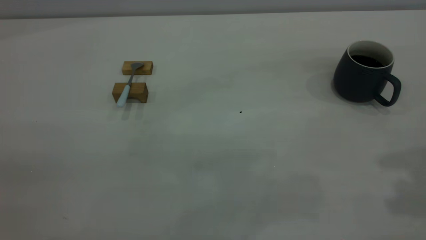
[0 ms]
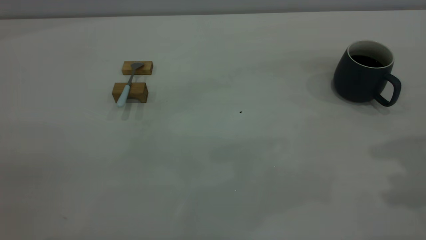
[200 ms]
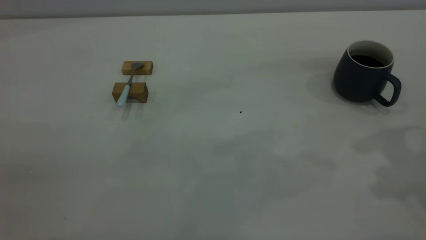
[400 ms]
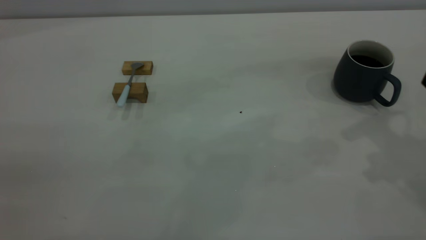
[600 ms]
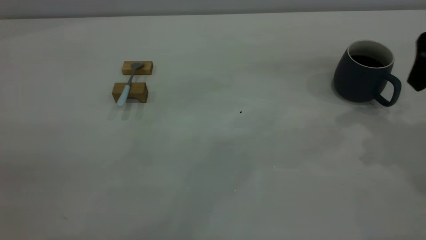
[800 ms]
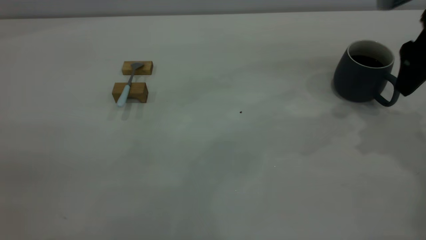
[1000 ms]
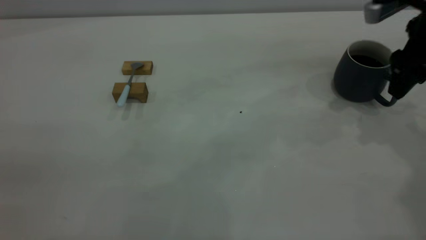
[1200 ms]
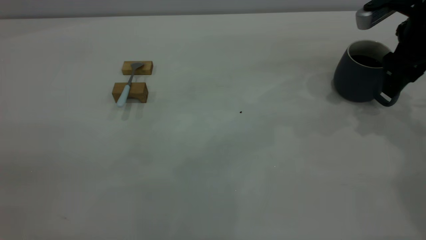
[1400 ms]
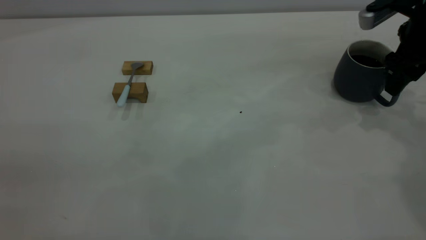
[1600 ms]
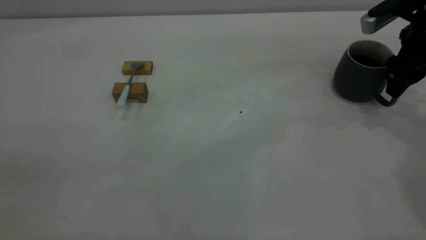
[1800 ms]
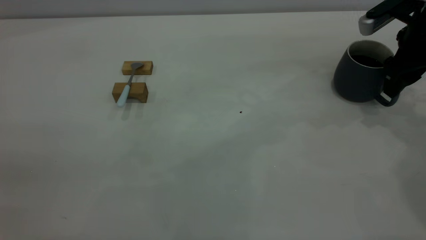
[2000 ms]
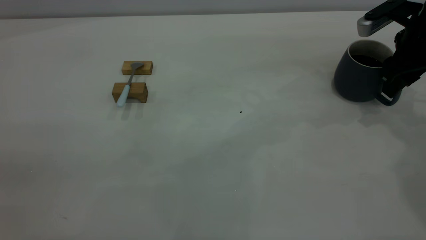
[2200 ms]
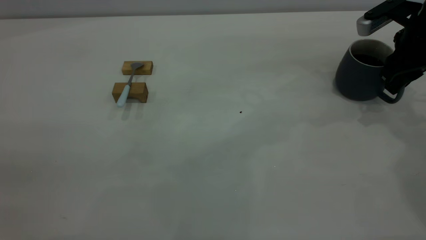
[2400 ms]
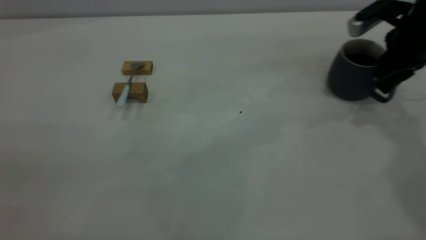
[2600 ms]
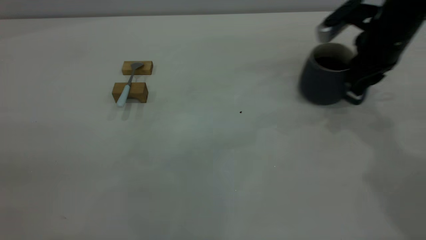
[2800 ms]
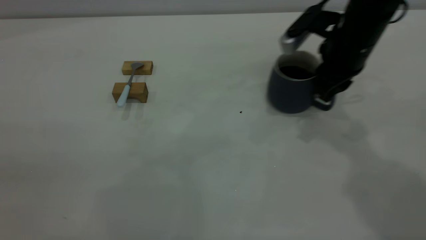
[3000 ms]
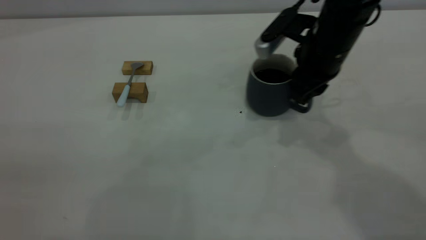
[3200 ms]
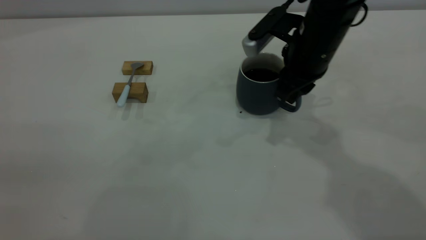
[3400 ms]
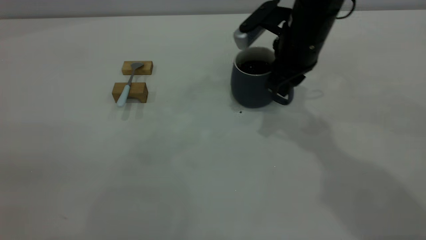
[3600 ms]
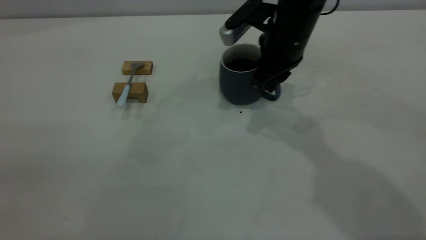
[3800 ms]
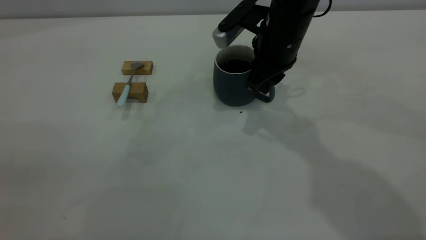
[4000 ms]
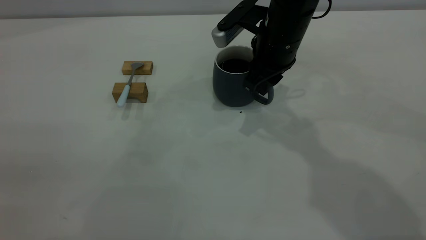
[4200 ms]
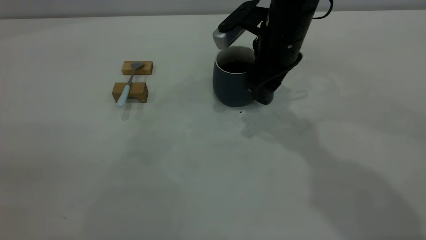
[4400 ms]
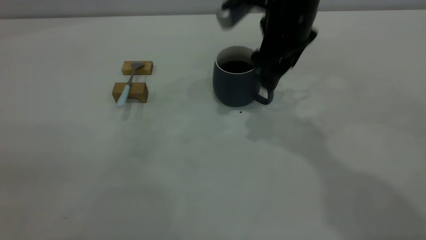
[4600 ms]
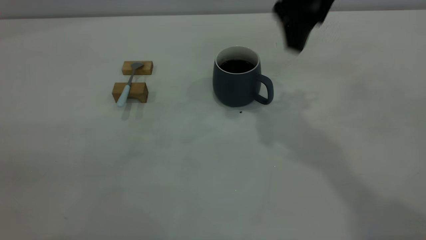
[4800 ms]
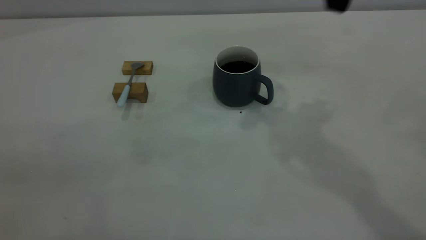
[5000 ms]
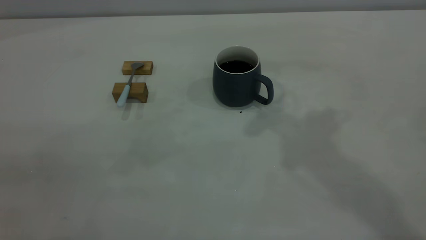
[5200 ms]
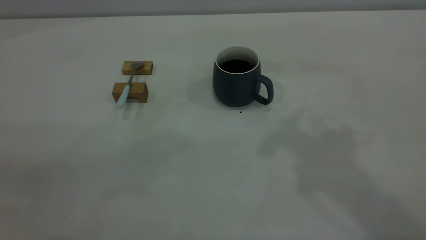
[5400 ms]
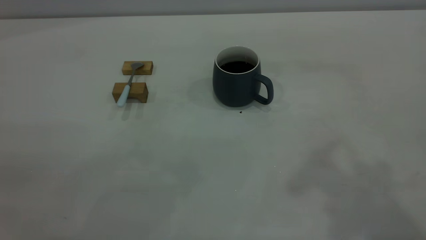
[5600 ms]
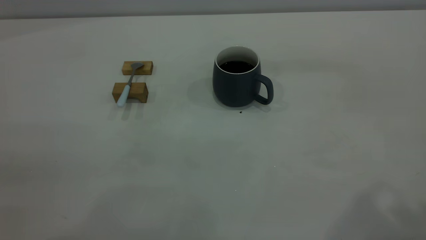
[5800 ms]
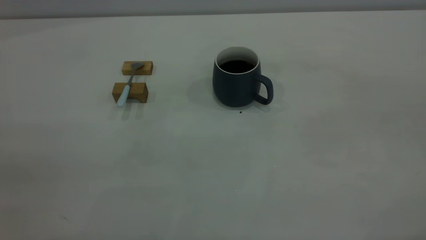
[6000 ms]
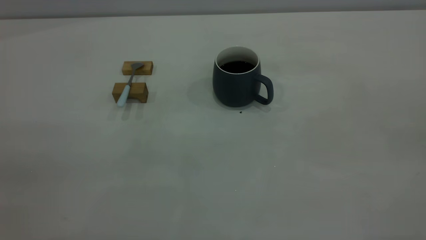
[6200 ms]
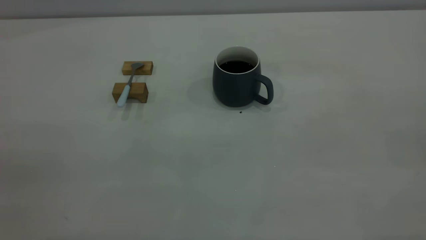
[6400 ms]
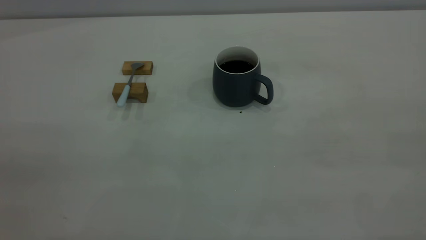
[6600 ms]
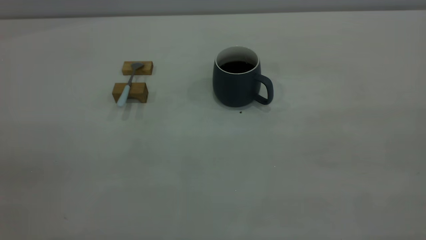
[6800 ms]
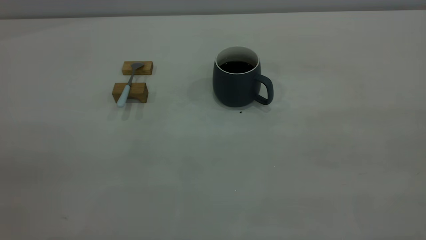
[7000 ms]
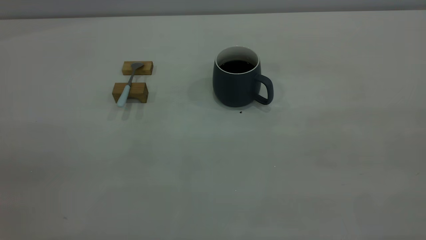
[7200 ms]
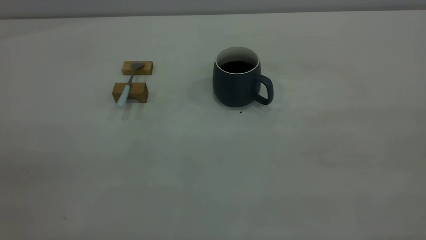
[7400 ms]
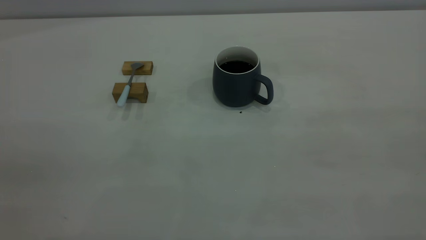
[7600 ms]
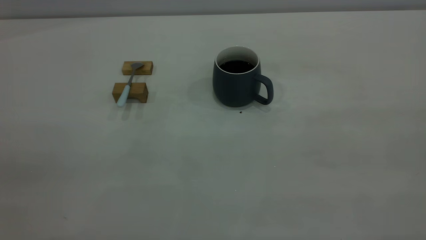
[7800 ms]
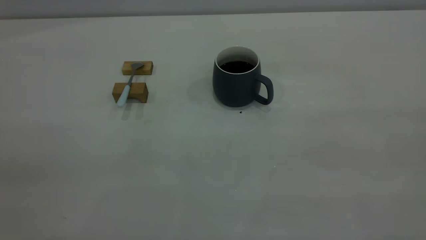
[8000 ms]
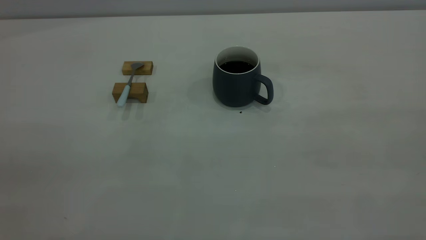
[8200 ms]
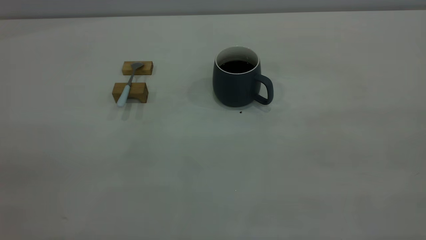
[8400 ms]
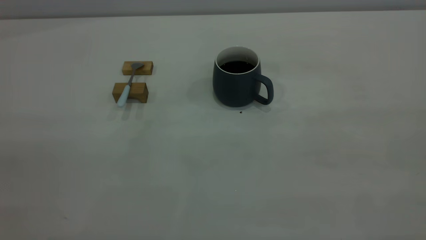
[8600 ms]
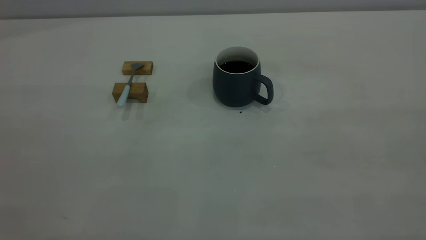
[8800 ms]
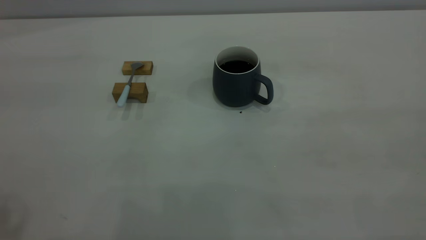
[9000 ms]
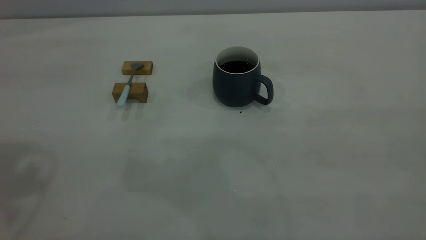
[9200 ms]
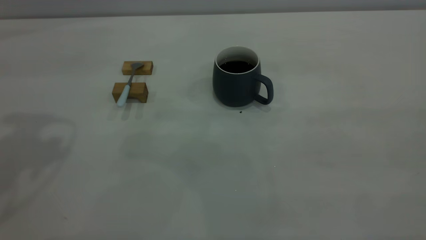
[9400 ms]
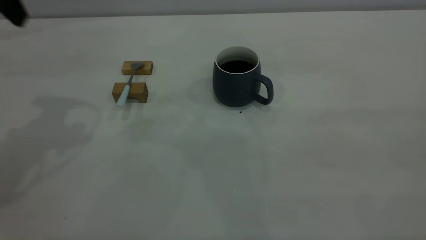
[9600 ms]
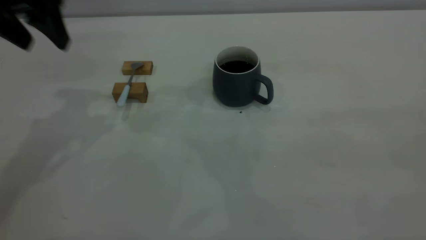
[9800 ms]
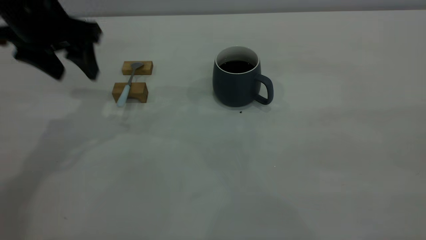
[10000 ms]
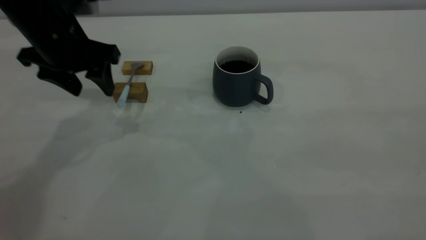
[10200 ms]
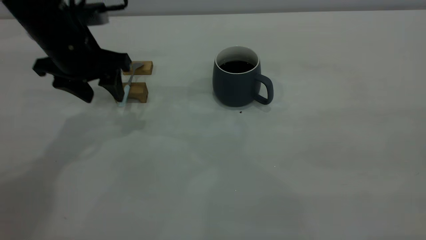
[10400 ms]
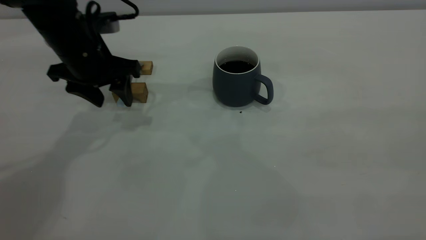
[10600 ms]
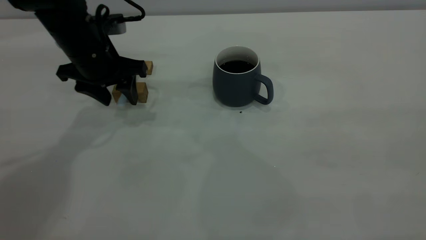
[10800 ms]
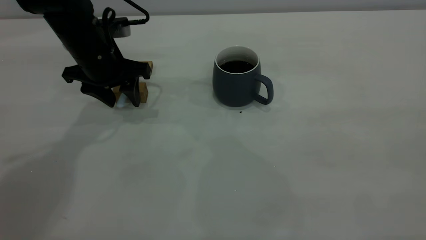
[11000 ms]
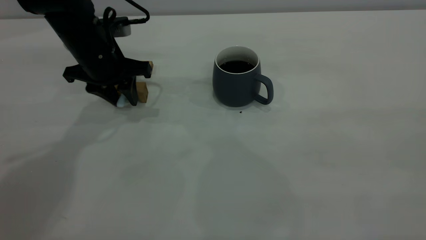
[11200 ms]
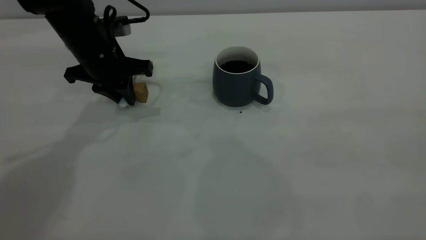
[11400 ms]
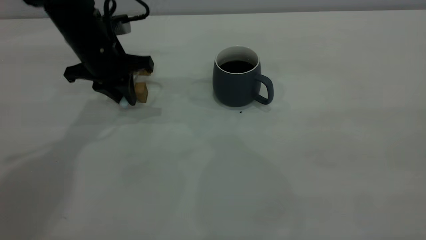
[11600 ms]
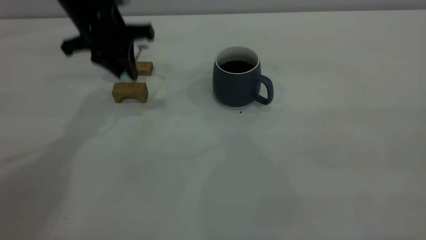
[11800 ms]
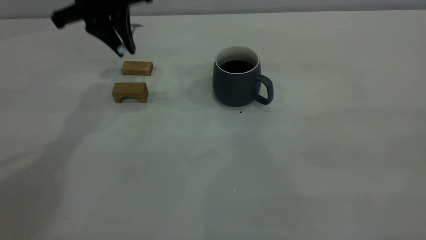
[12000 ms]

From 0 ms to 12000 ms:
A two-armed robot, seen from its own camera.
Step, from 600 ms to 4400 ms: Move the cup in the center of the table with right gripper.
Step, from 4600 ms to 11400 ms: Grasp the spoon with left gripper.
From 0 ms to 1600 ms: The right gripper shifts roughly 25 cm forward and downward.
From 1600 ms to 3000 ms: The right gripper shifts approximately 10 cm to the left, and closes.
From 3000 ms to 4400 ms: The right gripper goes roughly 10 cm to the left, and opens.
From 4400 ms to 6000 ms: The right gripper moves backward, upward and to the right, approximately 50 cm.
From 9000 ms to 10400 ms: The left gripper heads downward and forward, covering roughly 35 cm.
From 10400 ms to 12000 ms: The left gripper moves upward and forward, roughly 10 cm, and closes its fingers.

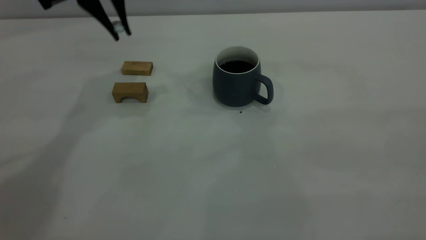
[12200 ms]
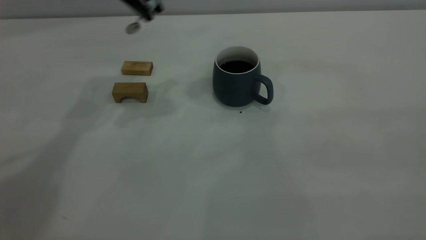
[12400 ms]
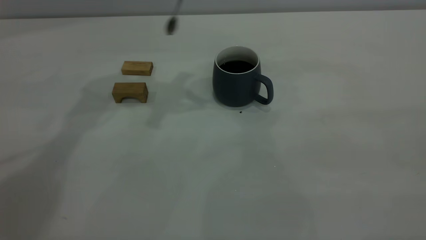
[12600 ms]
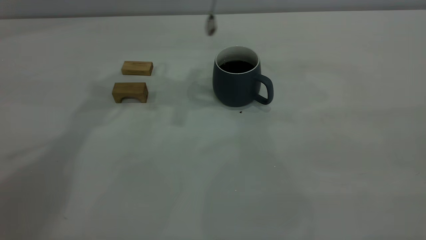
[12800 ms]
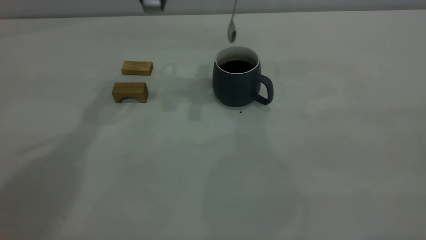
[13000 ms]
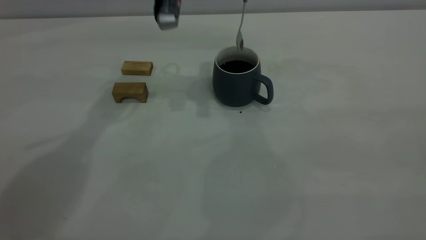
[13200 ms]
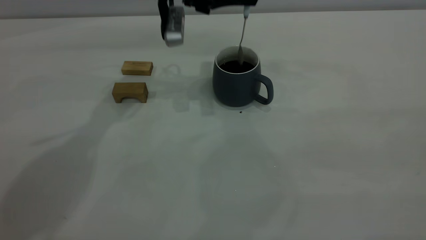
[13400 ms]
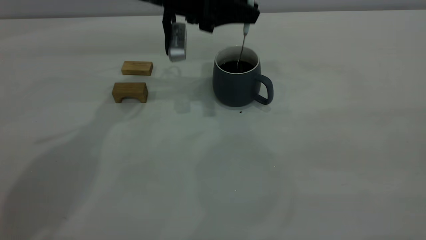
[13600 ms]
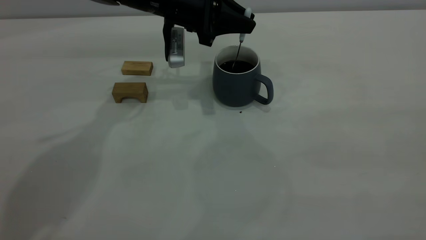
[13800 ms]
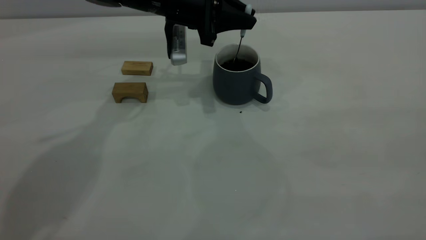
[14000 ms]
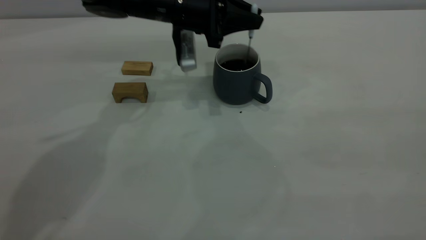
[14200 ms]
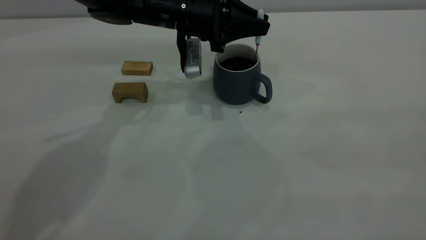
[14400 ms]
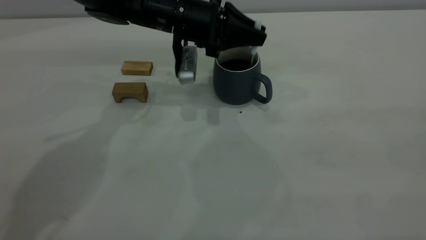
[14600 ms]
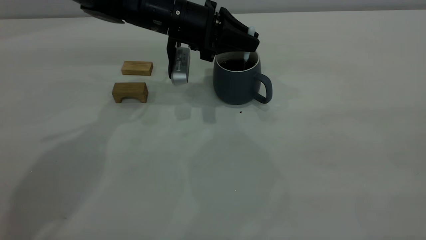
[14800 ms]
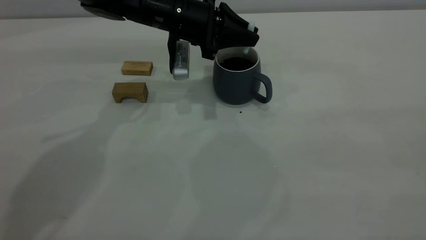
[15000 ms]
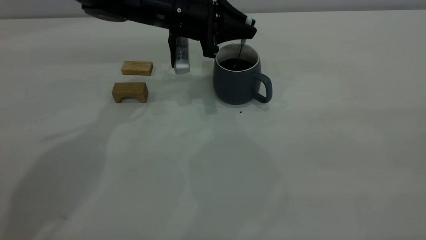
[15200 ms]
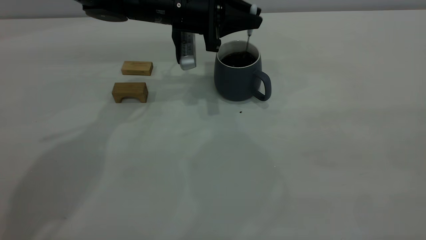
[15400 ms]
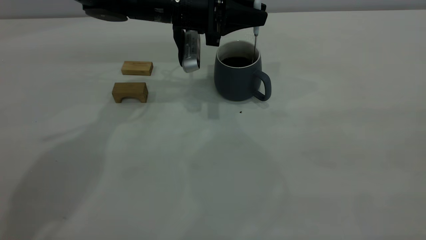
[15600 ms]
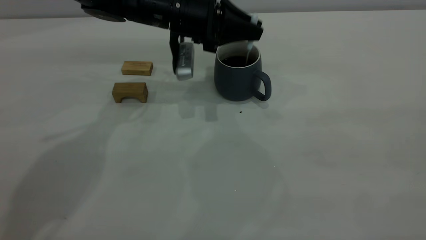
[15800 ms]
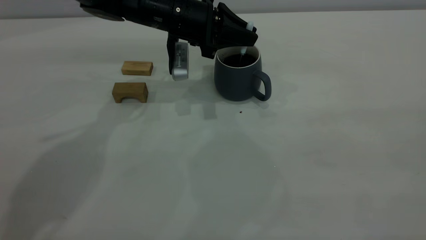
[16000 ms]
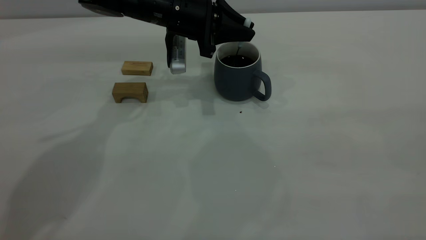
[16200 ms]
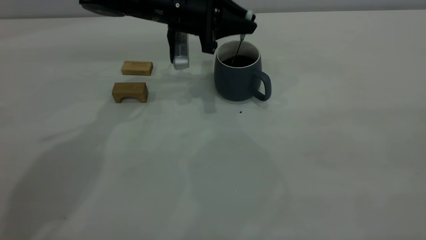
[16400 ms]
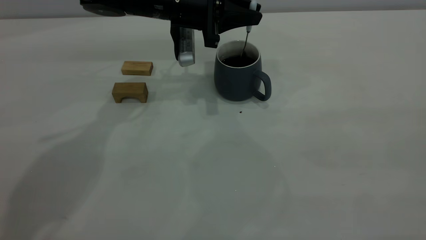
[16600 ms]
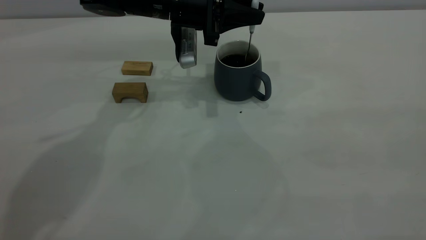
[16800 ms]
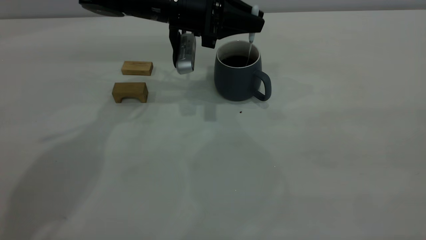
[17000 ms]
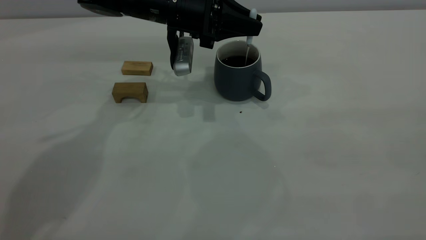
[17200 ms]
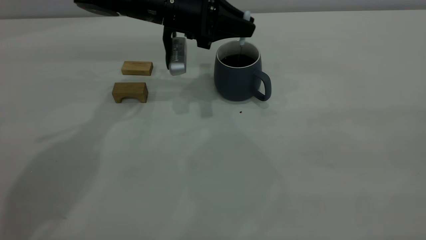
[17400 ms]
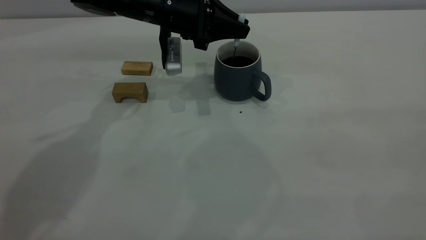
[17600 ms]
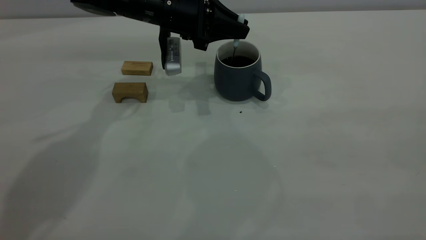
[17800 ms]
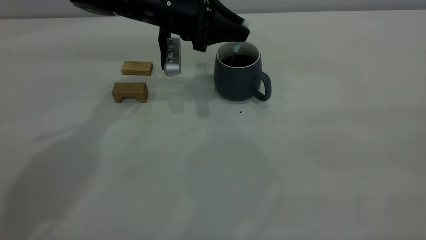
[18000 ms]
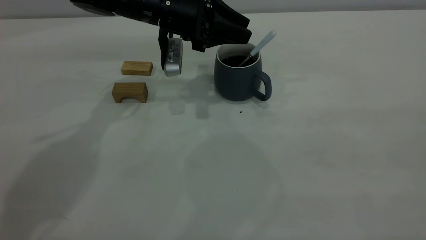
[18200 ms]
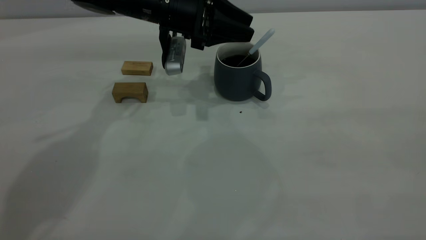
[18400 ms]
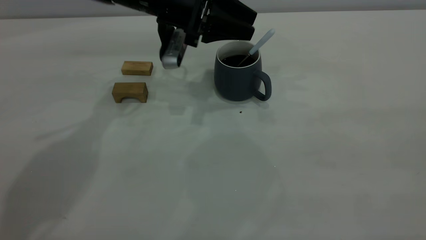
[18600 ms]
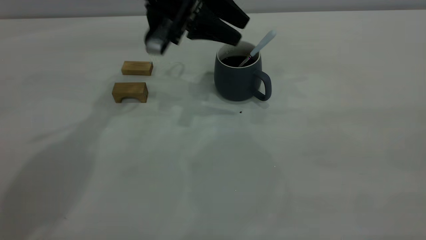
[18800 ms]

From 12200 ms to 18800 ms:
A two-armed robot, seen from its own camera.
Step, from 12200 ms to 18000 ms: Stir the coffee with left gripper.
From 12200 ms to 13800 ms: The left gripper goes approximately 15 cm downward and to the right.
From 13800 ms to 17200 ms: The grippers move only a little.
From 17200 ms to 18800 ms: The left gripper goes approximately 5 cm upward, and opens its fingers.
